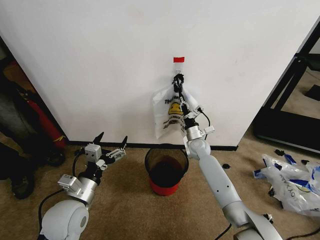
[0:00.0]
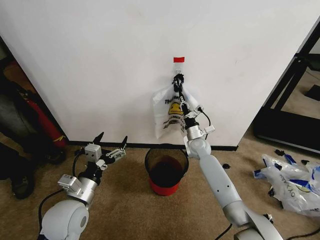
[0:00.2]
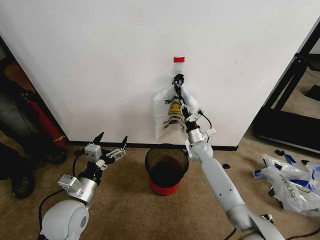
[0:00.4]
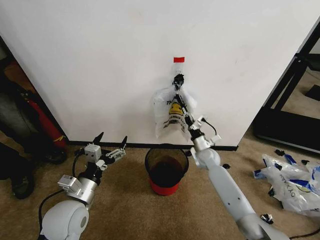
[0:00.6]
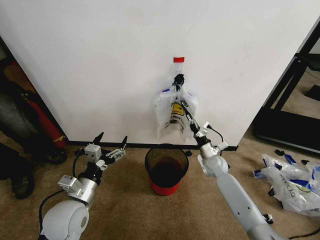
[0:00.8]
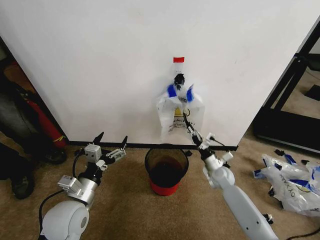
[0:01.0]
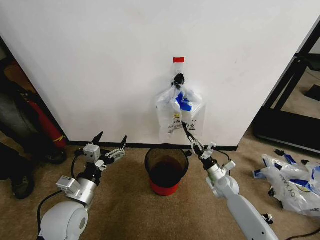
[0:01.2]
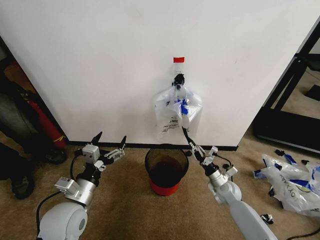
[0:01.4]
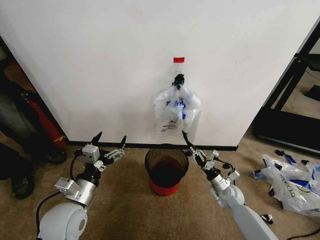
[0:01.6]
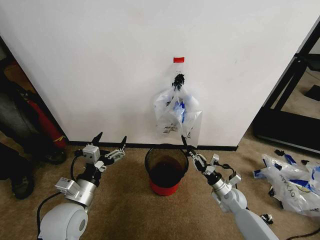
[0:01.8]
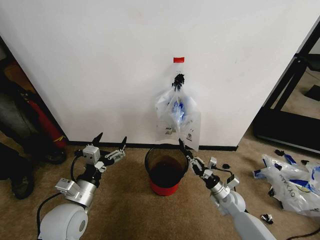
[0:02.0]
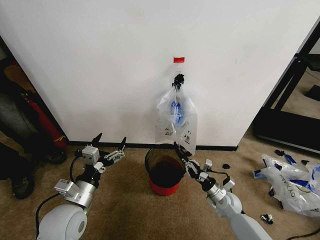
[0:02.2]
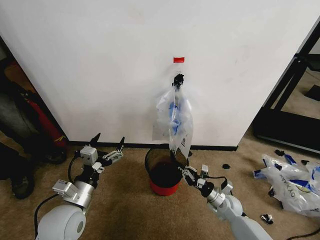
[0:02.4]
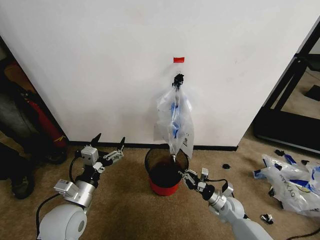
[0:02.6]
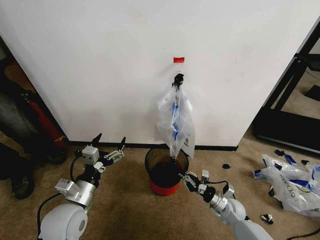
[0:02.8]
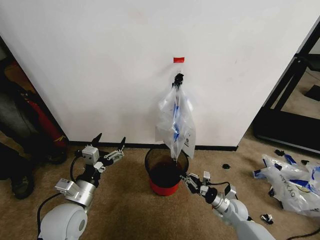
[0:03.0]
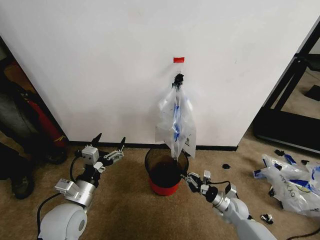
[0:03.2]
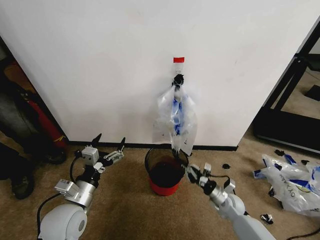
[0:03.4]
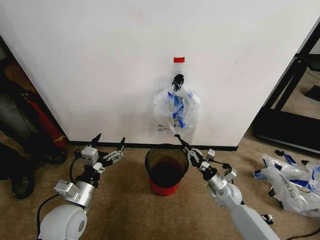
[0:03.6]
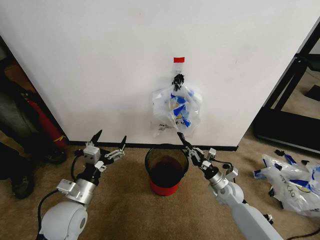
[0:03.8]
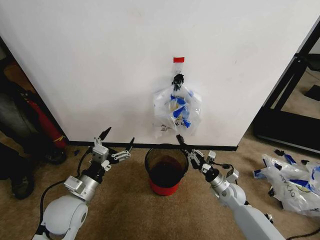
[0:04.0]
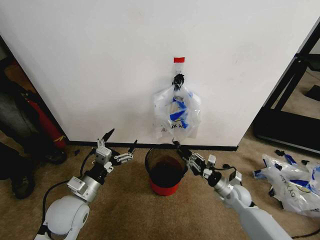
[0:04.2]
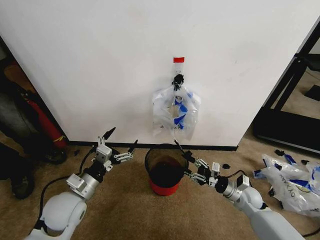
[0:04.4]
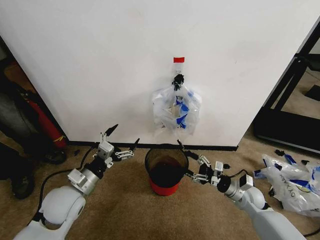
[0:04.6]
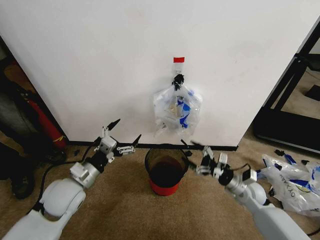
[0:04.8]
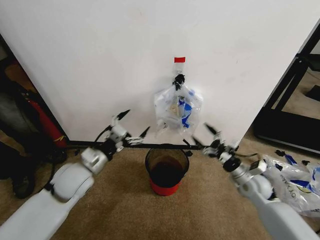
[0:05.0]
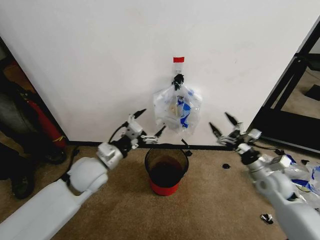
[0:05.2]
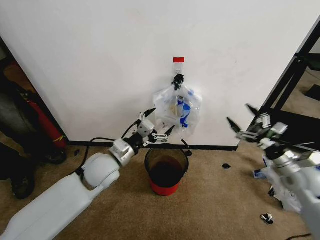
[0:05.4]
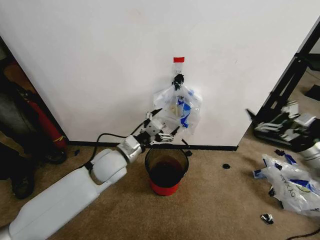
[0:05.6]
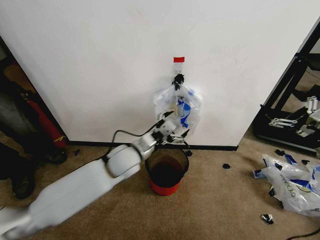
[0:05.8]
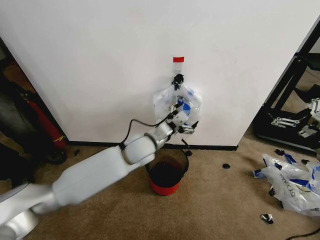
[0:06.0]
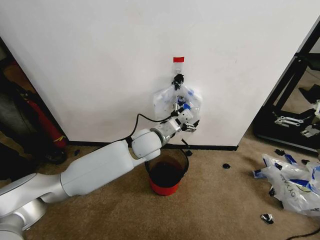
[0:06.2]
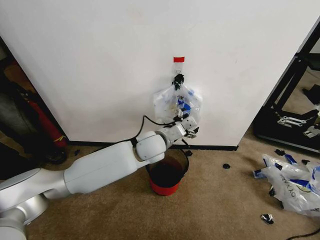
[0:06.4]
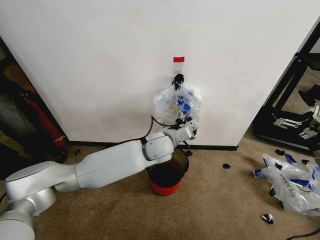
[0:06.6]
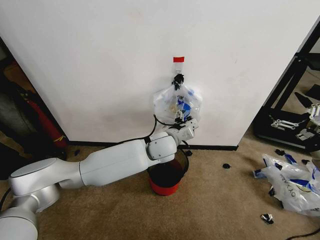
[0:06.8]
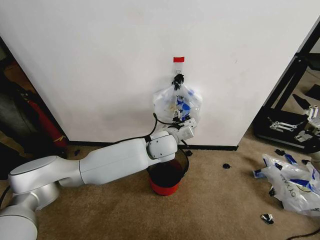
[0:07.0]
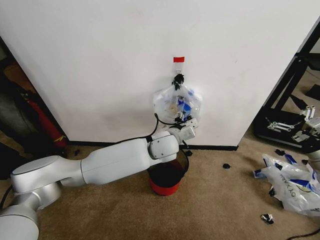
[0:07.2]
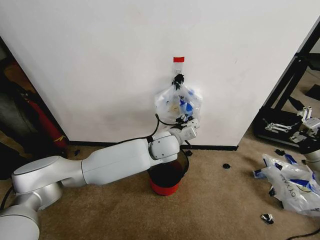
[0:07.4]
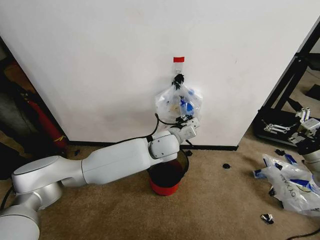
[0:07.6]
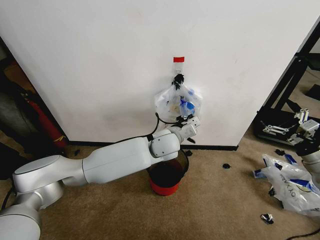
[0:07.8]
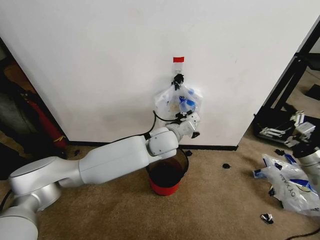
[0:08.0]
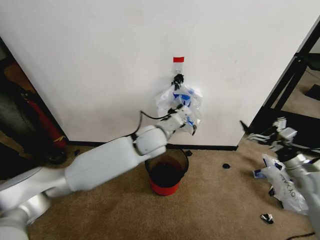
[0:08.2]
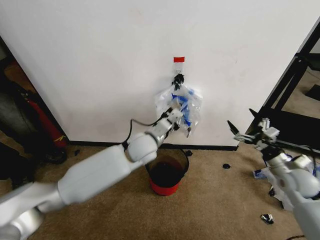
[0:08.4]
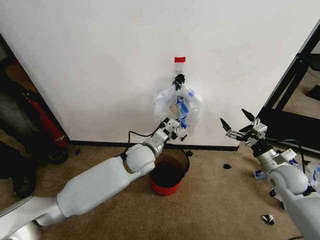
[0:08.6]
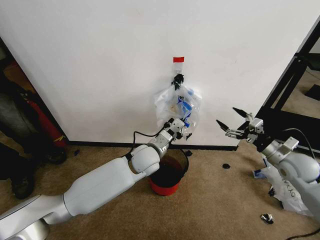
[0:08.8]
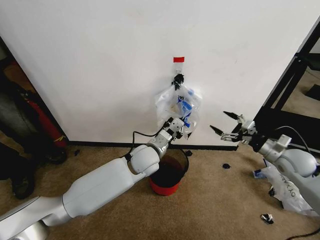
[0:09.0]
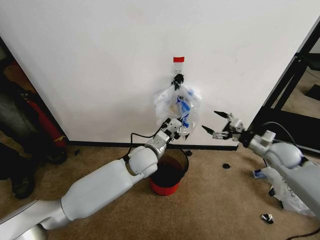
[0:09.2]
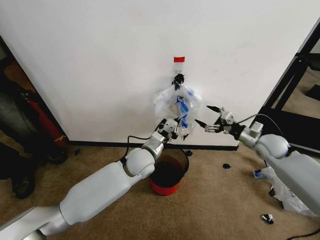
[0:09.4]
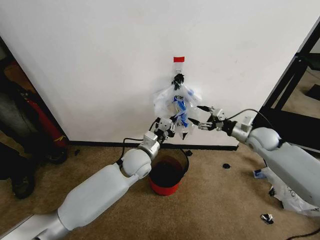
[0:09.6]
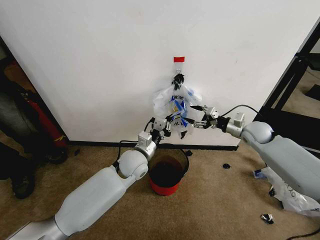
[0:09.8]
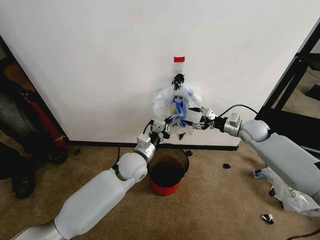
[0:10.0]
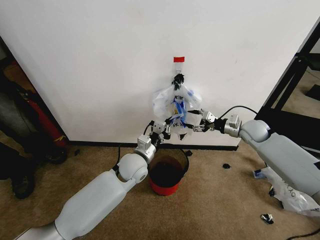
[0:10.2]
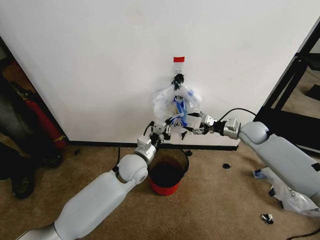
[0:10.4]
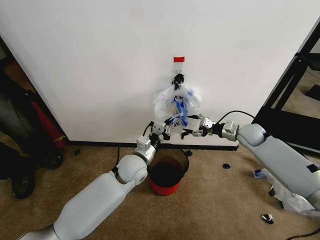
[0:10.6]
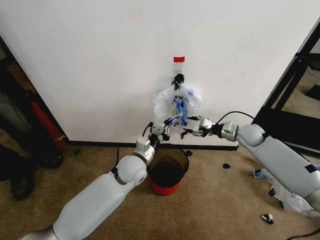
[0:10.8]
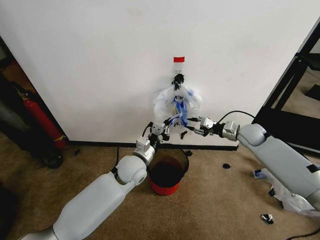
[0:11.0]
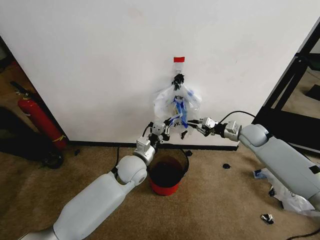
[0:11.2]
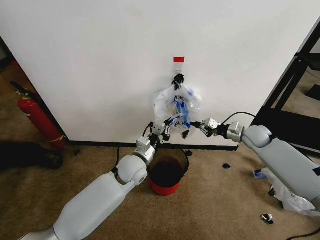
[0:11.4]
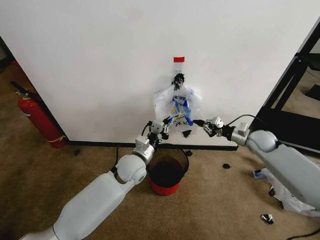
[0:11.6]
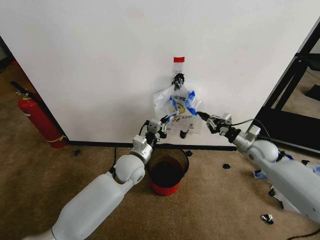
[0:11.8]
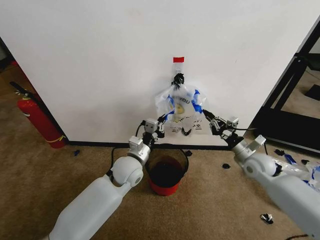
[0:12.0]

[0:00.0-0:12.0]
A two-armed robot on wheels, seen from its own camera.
Task of the whole recording: Pick up the garbage bag from the wall and place it over the trash bin.
0:00.0 to 0:01.6: The right gripper shifts roughly 25 cm backward, to the right and downward.
0:01.6 to 0:03.0: The right gripper changes place by some 5 cm.
0:03.0 to 0:04.4: The right gripper shifts roughly 5 cm upward, and opens its fingers.
0:04.4 to 0:06.0: The left gripper moves to the right and forward, roughly 25 cm, while the right gripper is displaced upward and to the right by approximately 30 cm, and opens its fingers.
0:06.0 to 0:07.6: The left gripper heads to the right, covering roughly 10 cm, and closes.
0:07.6 to 0:09.0: The right gripper shifts some 10 cm to the left and forward; the left gripper shifts approximately 5 cm to the left.
0:09.0 to 0:10.4: The right gripper goes approximately 15 cm forward and to the left. Meanwhile the left gripper ends up roughly 5 cm from where it was.
0:10.4 to 0:12.0: The right gripper shifts roughly 15 cm backward and downward, and closes up.

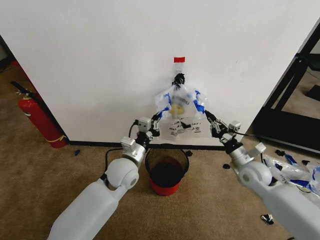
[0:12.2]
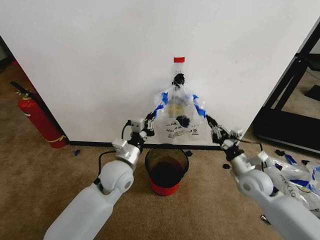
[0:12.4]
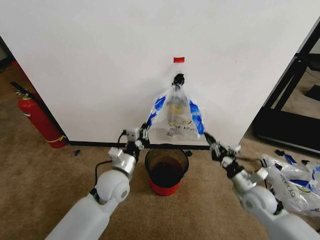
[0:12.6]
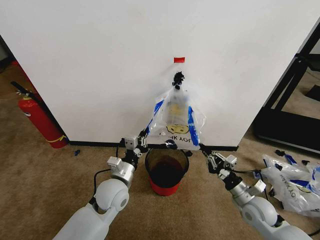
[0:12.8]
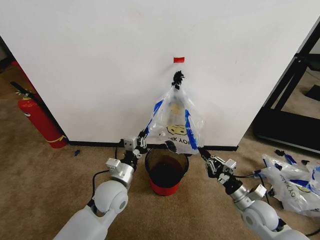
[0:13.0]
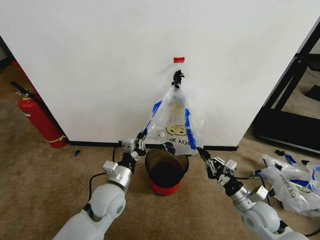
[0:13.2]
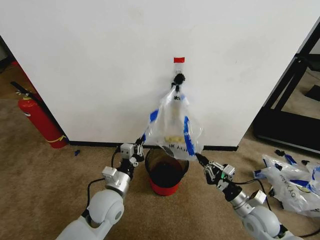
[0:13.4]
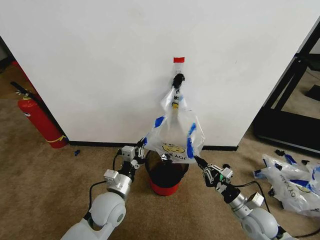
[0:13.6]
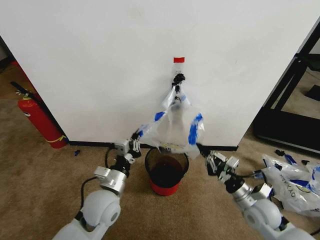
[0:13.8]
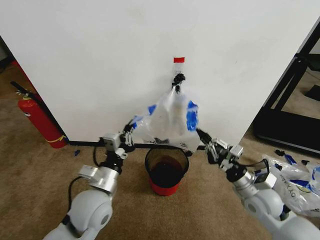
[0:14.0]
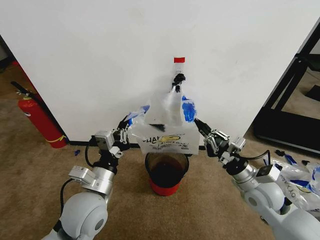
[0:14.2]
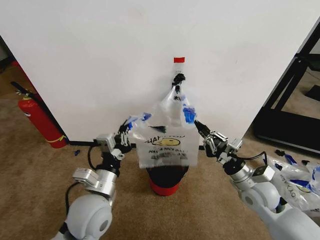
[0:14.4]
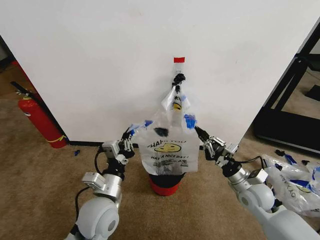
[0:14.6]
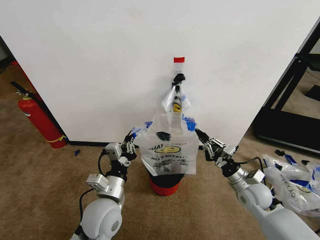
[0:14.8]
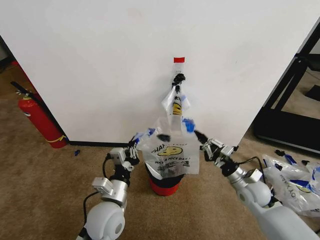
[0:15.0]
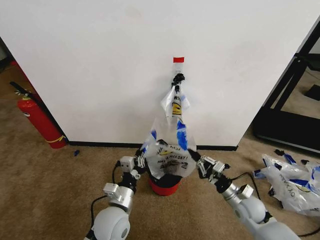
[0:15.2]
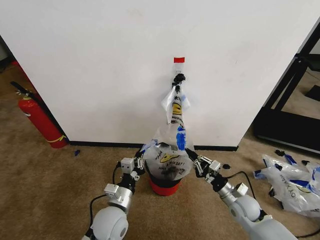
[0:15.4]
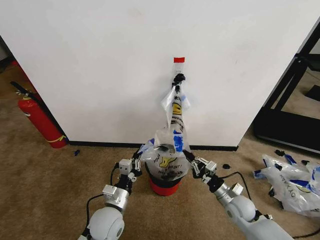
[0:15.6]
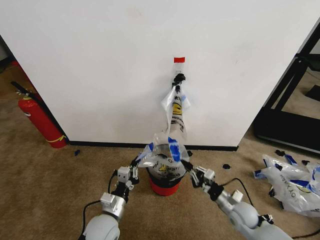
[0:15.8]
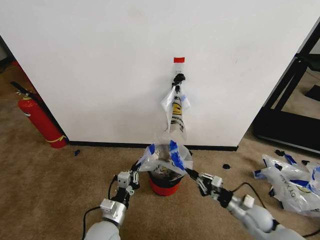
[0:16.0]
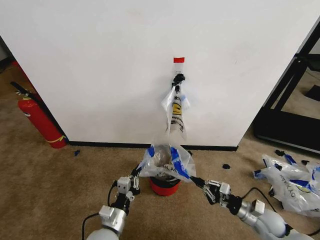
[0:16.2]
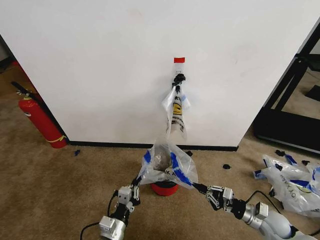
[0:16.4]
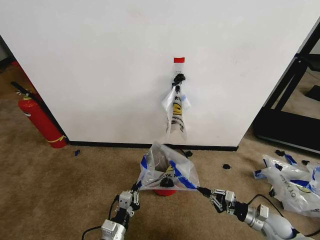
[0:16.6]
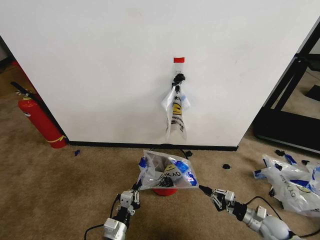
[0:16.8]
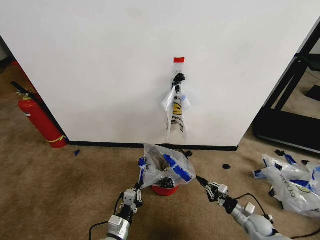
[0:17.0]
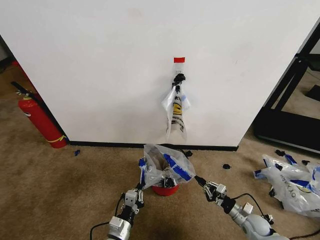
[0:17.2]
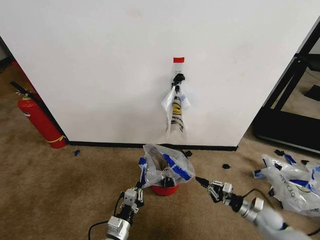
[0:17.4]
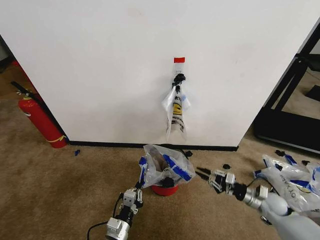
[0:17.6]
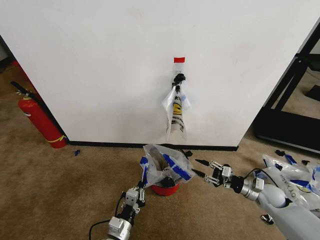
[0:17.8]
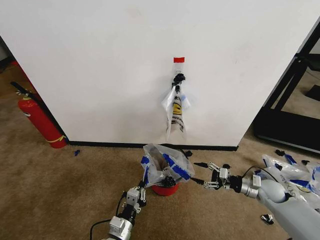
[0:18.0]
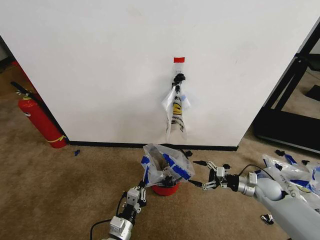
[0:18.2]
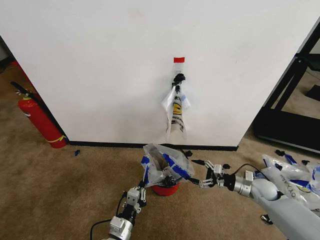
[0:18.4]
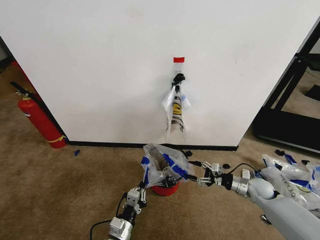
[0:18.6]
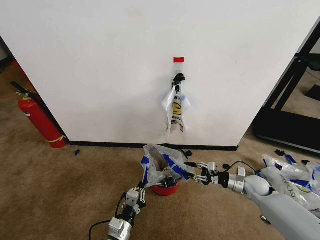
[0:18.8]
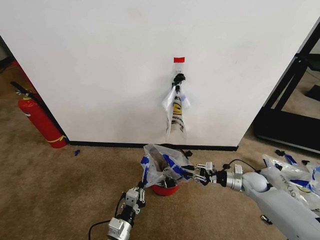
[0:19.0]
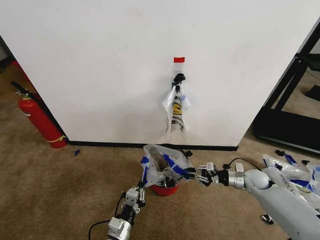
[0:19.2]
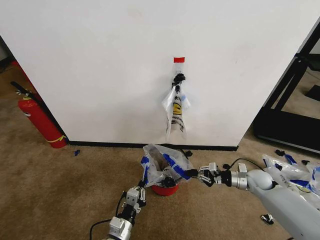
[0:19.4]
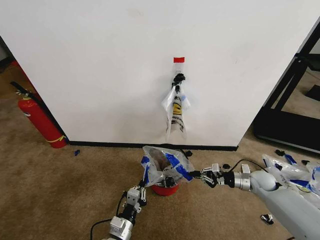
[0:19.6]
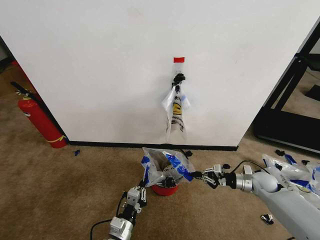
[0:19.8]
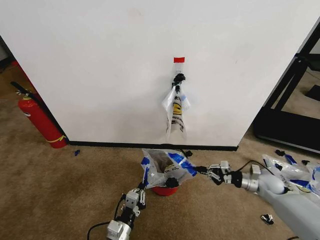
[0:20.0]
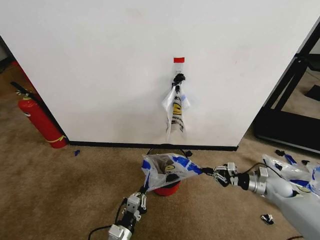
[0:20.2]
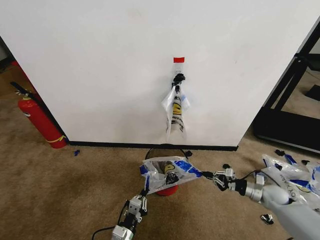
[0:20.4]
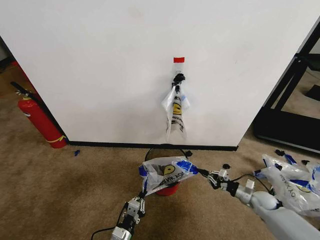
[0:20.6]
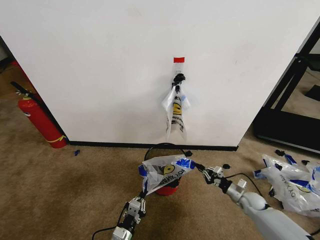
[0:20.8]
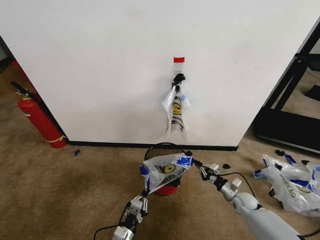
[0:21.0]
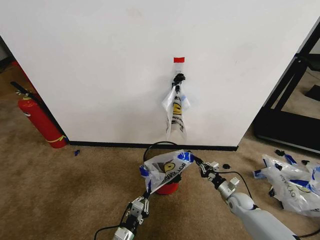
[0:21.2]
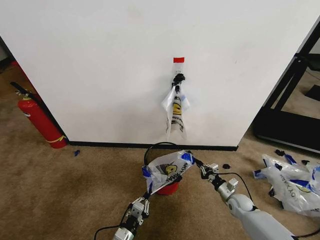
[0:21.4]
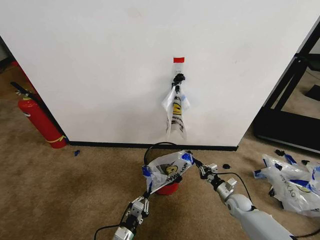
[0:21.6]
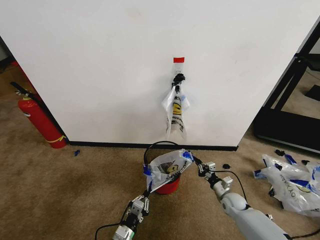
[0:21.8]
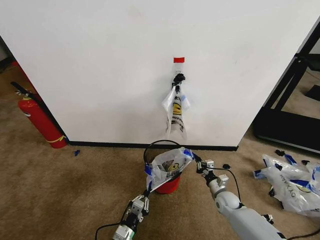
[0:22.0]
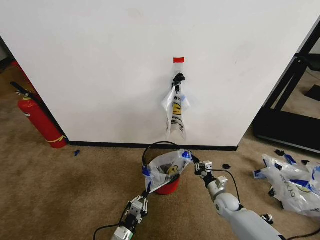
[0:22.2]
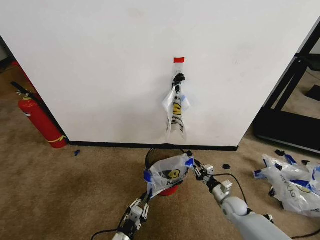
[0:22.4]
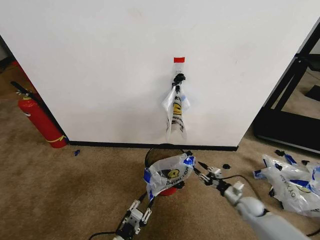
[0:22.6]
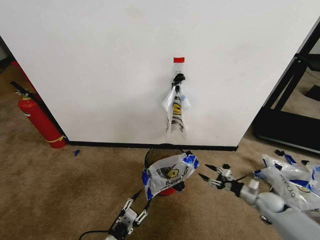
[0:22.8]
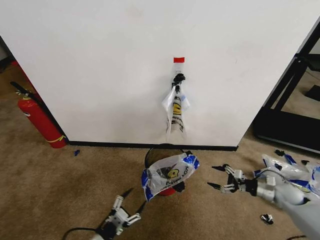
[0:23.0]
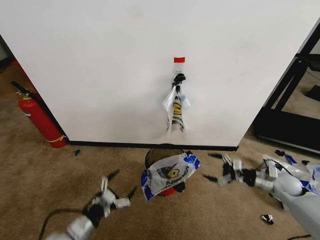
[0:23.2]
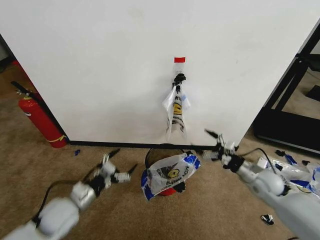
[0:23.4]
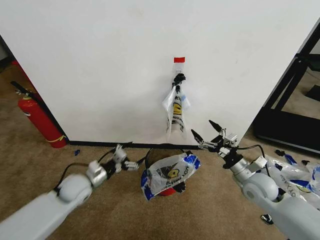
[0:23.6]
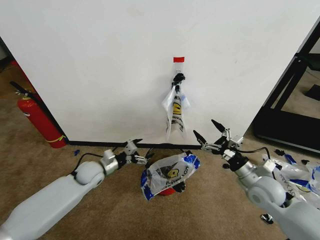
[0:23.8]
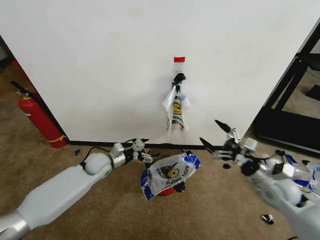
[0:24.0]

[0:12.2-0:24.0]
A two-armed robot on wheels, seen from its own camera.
Task of the whole recording: Pick up the garbage bag from the wall and place it over the trash bin.
0:12.2 to 0:13.6: The grippers both shift backward and downward by about 15 cm.
0:13.6 to 0:15.2: The right gripper reaches approximately 10 cm upward, then returns. The left gripper travels upward and back again, roughly 10 cm each way.
0:15.2 to 0:16.6: The left gripper goes some 10 cm downward and backward, while the right gripper moves to the right and downward, approximately 10 cm.
0:16.6 to 0:18.2: The right gripper moves forward and upward, some 15 cm, and opens its fingers.
0:18.2 to 0:19.6: The right gripper closes.
0:19.6 to 0:21.0: The left gripper heads downward, covering some 5 cm. Meanwhile the right gripper travels downward by about 10 cm.
0:21.0 to 0:22.6: The right gripper moves approximately 10 cm to the left and comes back, and opens.
0:22.6 to 0:24.0: The right gripper goes some 20 cm upward, and opens, while the left gripper moves forward and upward, approximately 35 cm, and opens its fingers.
